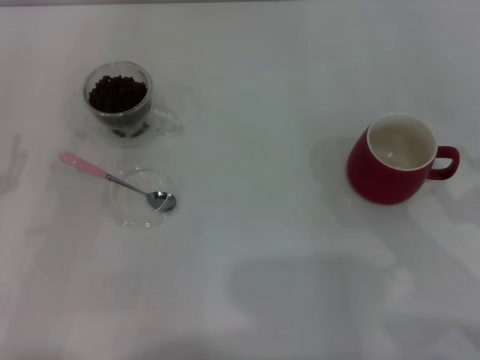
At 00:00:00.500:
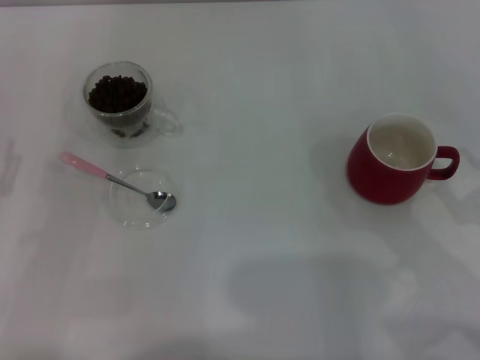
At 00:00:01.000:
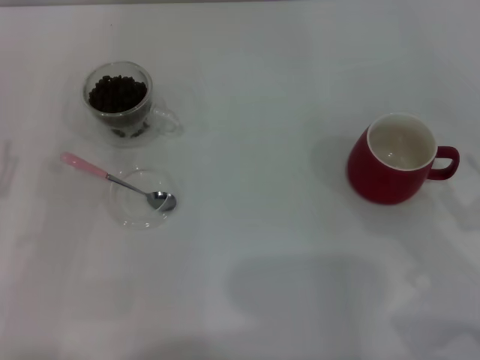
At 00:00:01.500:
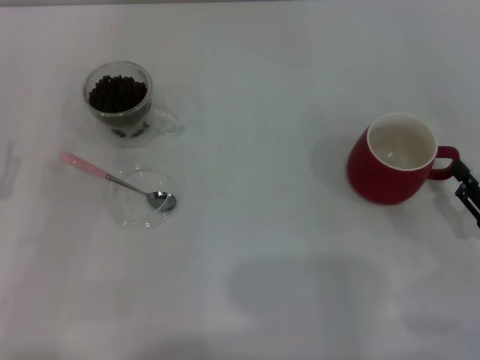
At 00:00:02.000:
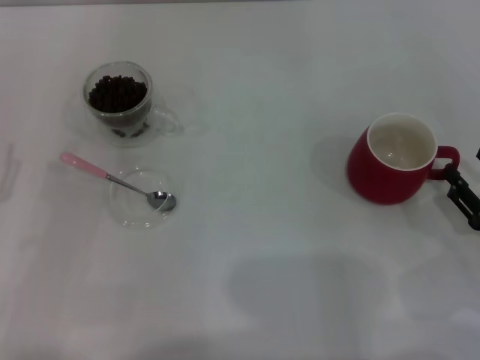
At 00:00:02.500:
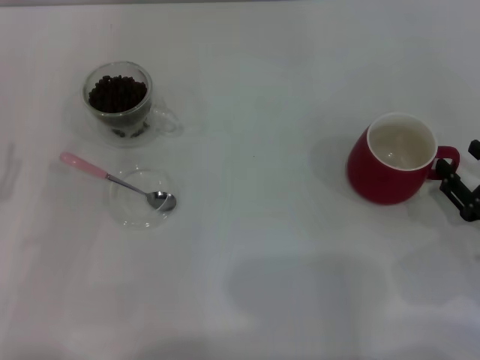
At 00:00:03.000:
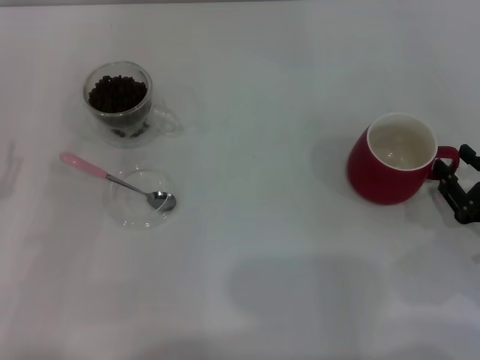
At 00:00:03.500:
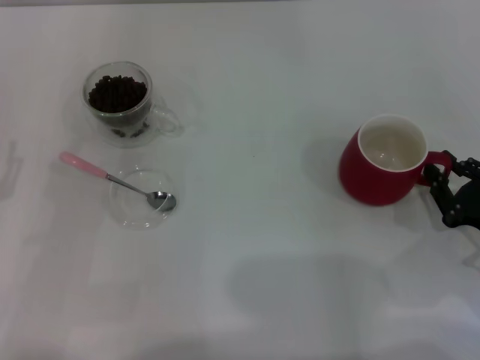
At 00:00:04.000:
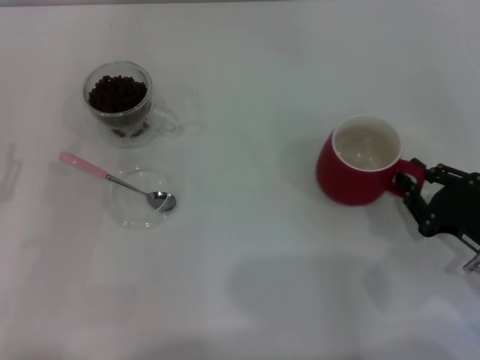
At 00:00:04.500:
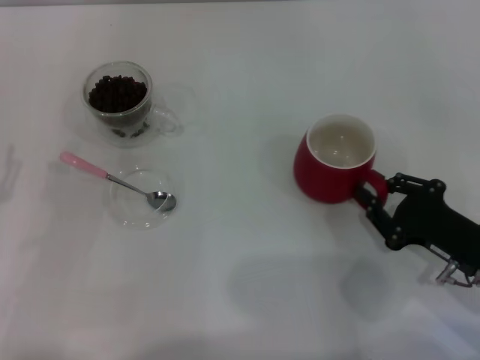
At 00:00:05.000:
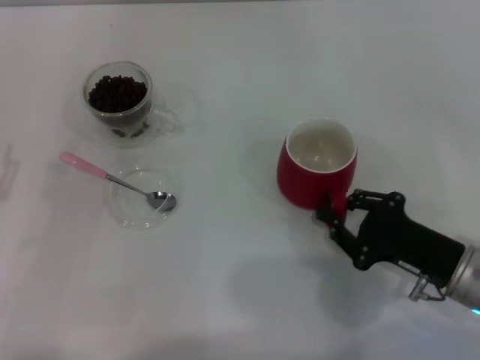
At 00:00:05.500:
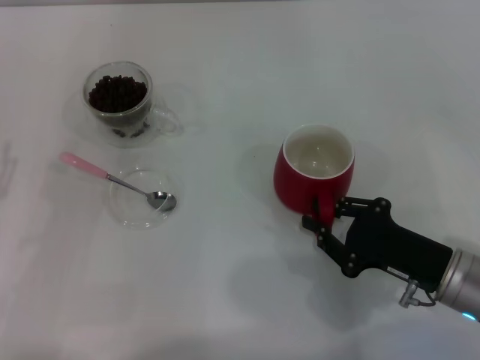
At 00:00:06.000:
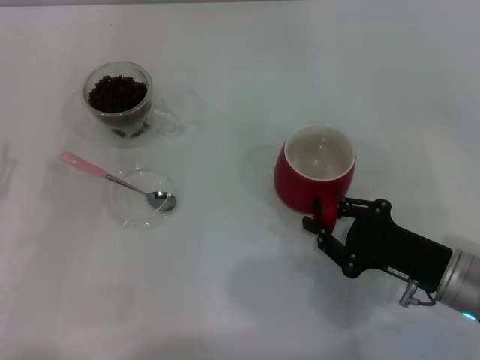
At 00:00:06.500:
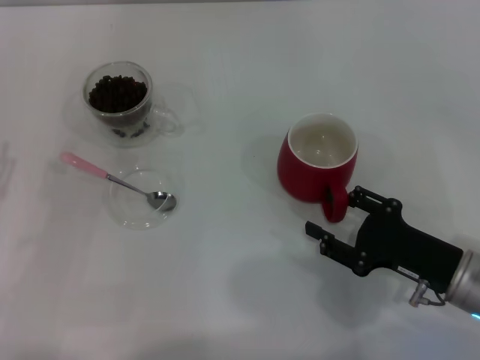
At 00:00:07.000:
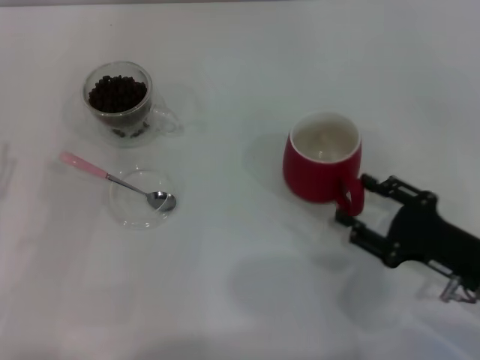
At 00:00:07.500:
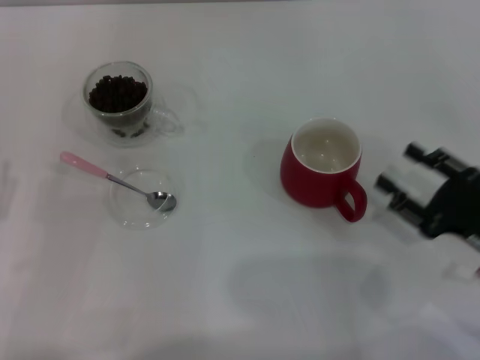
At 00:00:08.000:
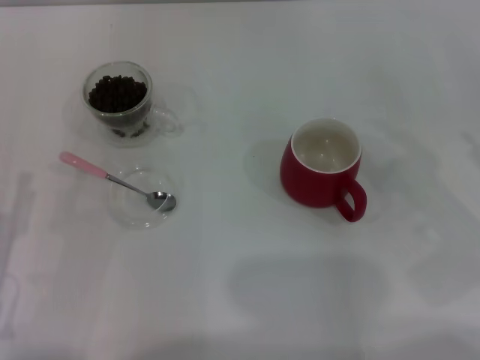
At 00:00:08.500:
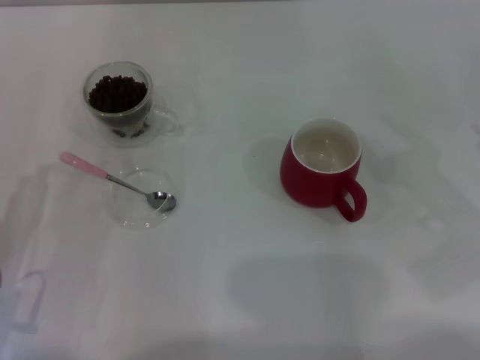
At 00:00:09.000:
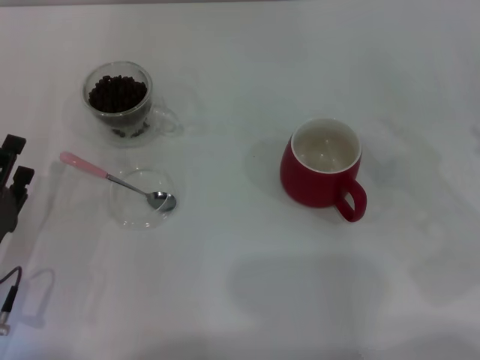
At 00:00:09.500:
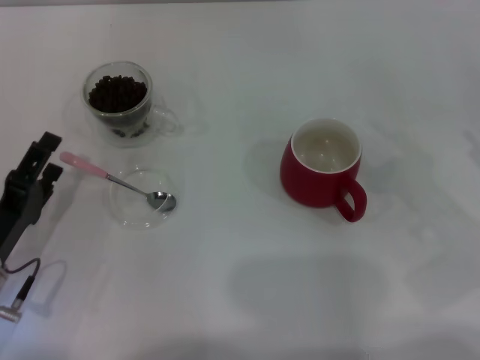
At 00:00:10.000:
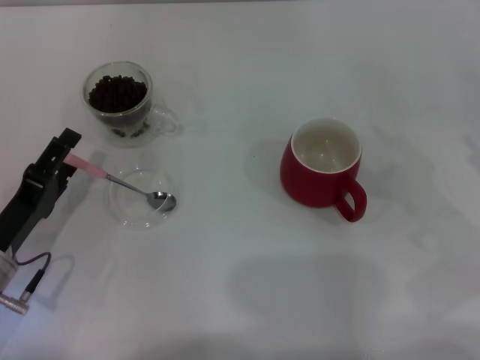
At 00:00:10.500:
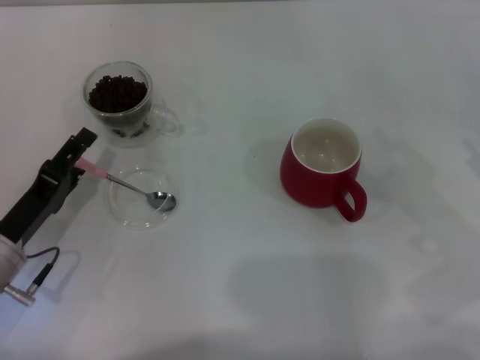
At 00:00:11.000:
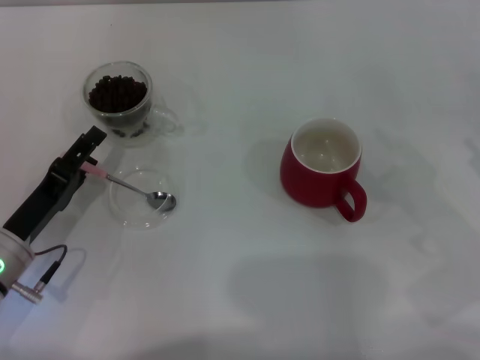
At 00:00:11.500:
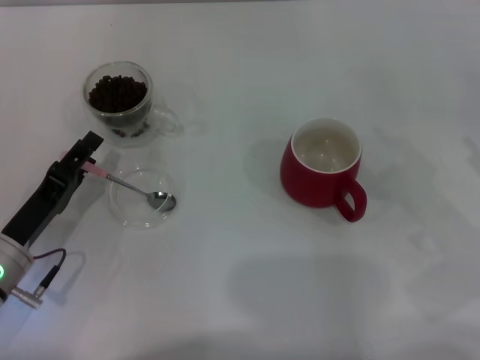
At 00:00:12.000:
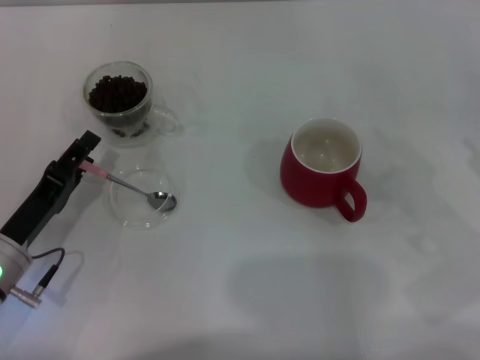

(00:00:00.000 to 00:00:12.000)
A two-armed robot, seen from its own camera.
Task of the whole recording: Use a pink spoon to take out the coffee beans from the glass and pour them into the red cup.
00:00:00.000 - 00:00:02.000: The right gripper shifts by approximately 5 cm.
00:00:02.000 - 00:00:04.000: The right gripper closes its fingers.
00:00:04.000 - 00:00:06.000: The right gripper is displaced to the left by roughly 5 cm.
00:00:06.000 - 00:00:08.000: The right gripper is displaced to the right and upward by roughly 15 cm, and opens its fingers. Meanwhile the left gripper changes place by about 5 cm.
00:00:08.000 - 00:00:10.000: The left gripper heads forward, covering approximately 5 cm.
00:00:10.000 - 00:00:12.000: There are only small adjustments of the grippers.

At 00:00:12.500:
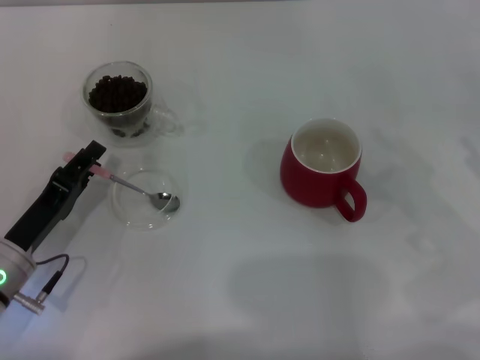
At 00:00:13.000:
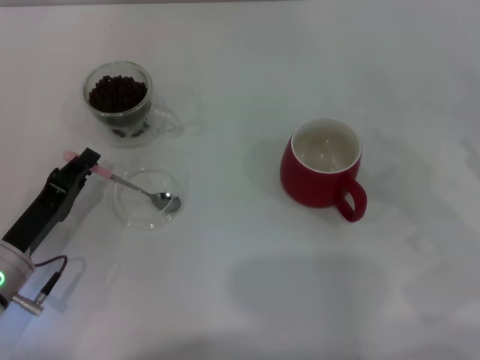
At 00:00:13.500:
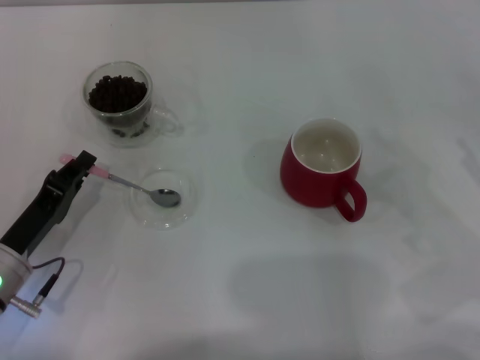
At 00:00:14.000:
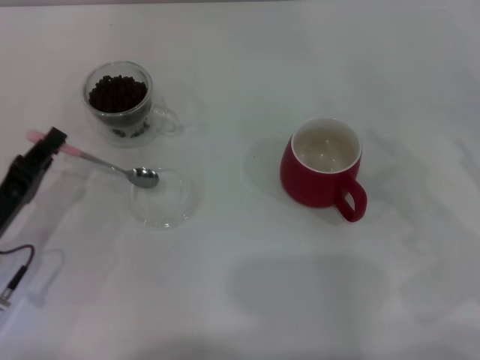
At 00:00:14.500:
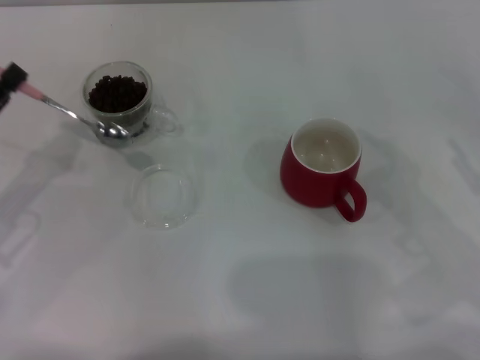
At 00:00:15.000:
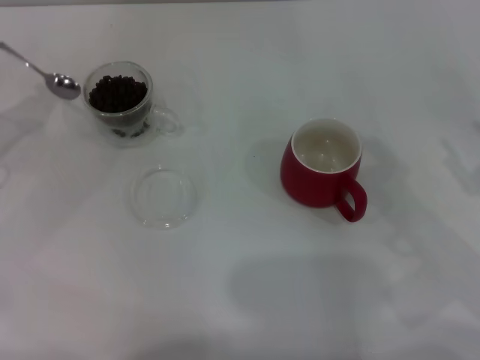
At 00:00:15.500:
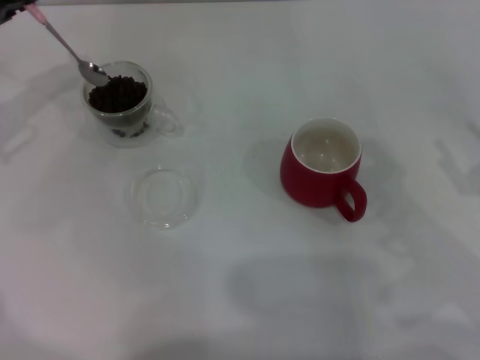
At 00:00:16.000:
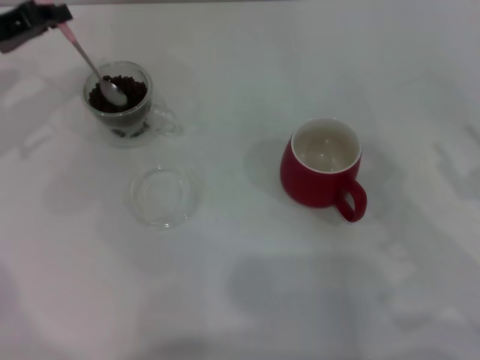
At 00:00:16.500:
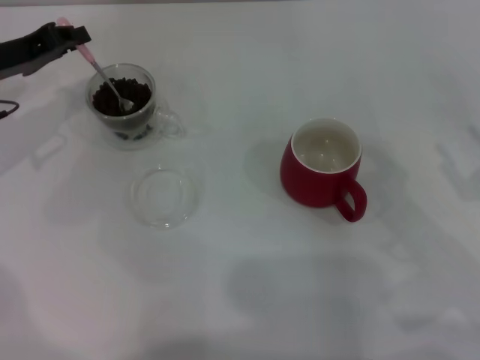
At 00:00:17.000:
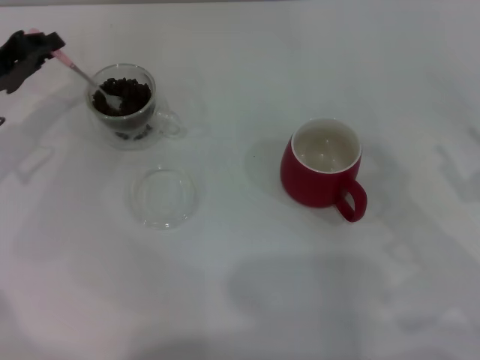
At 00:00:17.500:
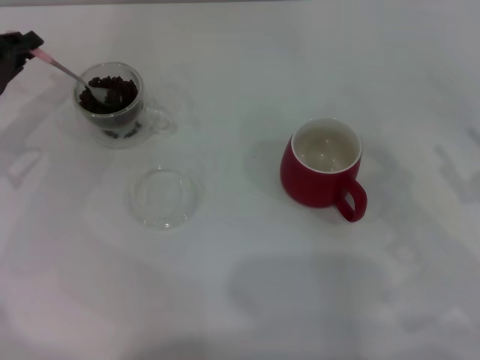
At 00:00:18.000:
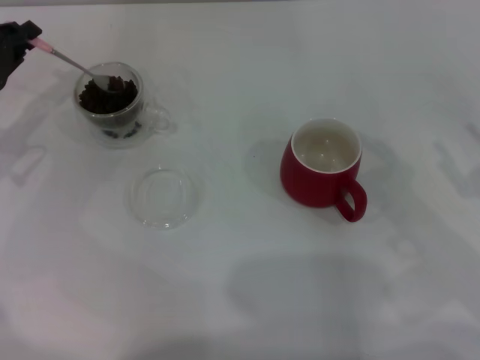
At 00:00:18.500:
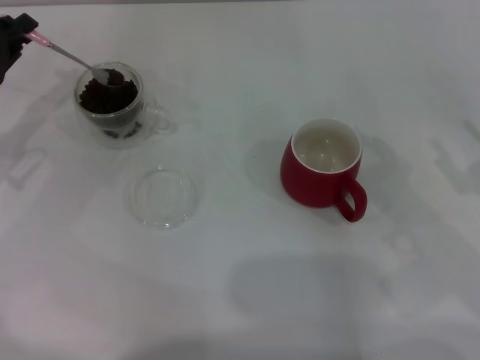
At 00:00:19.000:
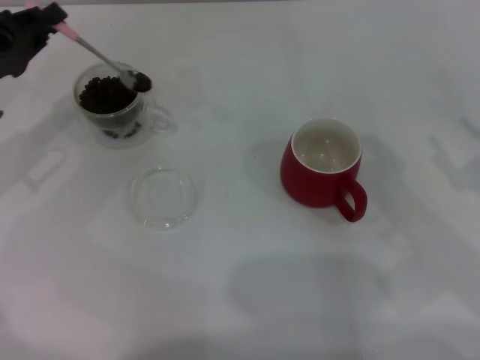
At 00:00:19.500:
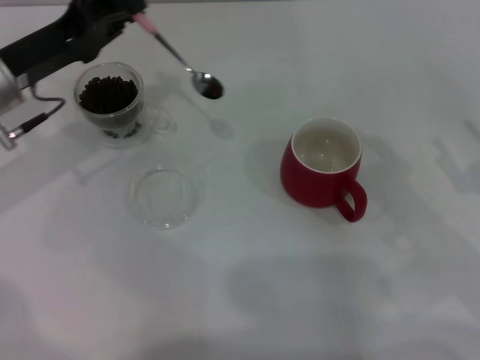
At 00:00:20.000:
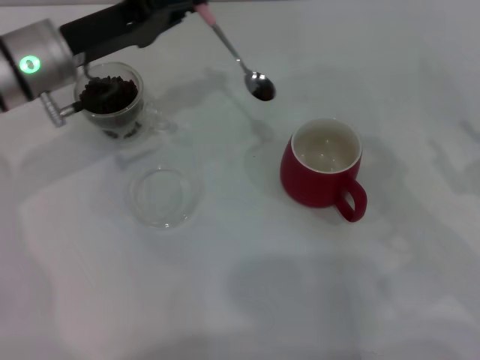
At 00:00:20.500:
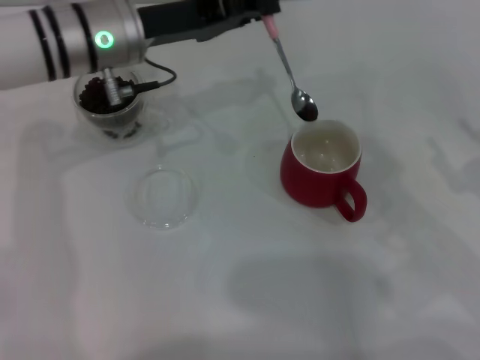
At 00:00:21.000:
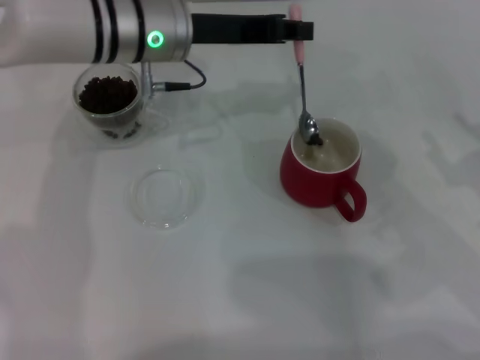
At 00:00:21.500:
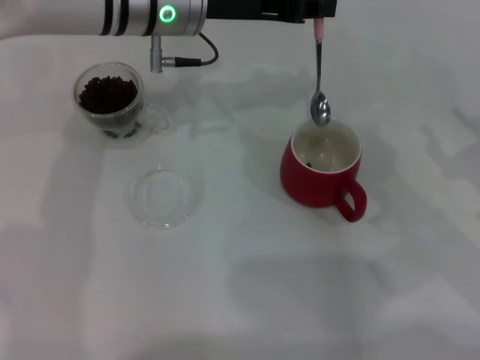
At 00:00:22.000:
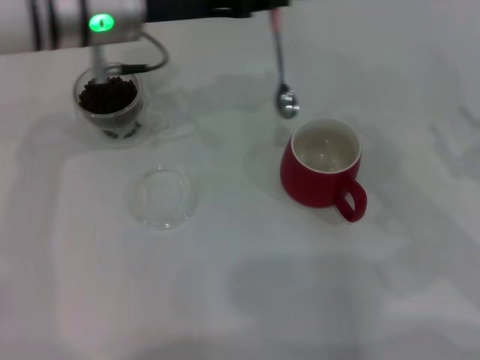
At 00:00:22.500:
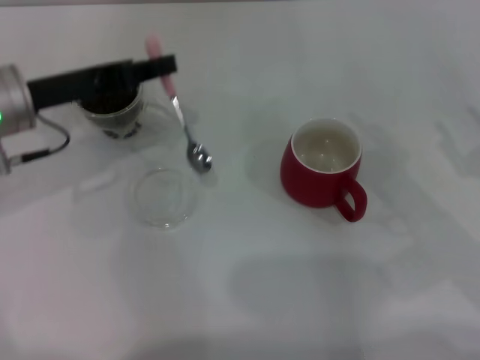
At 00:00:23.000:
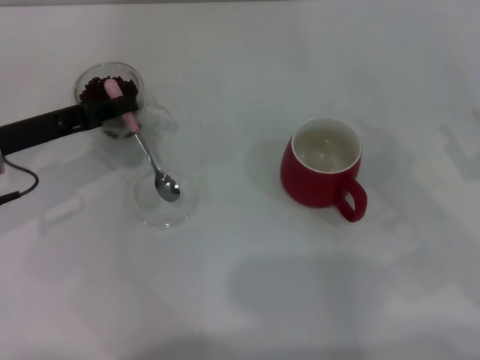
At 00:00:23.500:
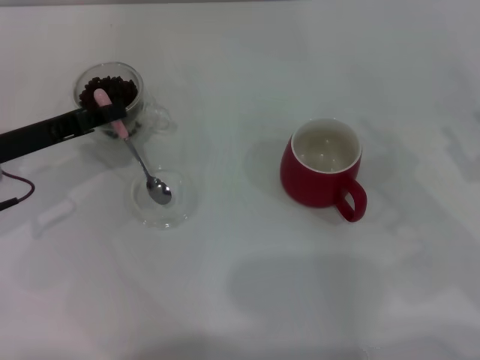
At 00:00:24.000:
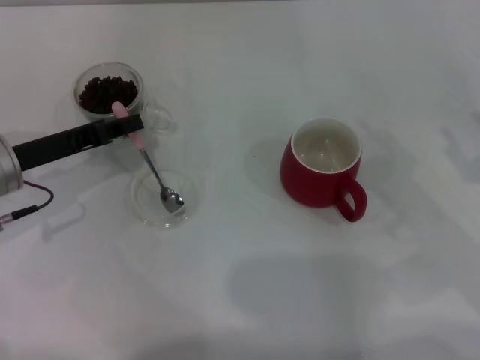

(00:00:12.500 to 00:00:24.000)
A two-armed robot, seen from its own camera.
Task of the whole recording: Use a pink spoon to take out the coffee beans from the glass and pour them into the red cup.
00:00:12.500 - 00:00:14.500: The left gripper is displaced upward and to the left by some 10 cm, and closes.
00:00:14.500 - 00:00:16.500: The left gripper travels forward by roughly 15 cm.
00:00:16.500 - 00:00:18.500: The left gripper changes place by some 5 cm.
00:00:18.500 - 00:00:20.000: The left gripper goes about 15 cm to the right.
00:00:20.000 - 00:00:22.000: The left gripper moves to the right and upward, some 5 cm.
00:00:22.000 - 00:00:24.000: The left gripper goes about 20 cm to the left, downward and backward.

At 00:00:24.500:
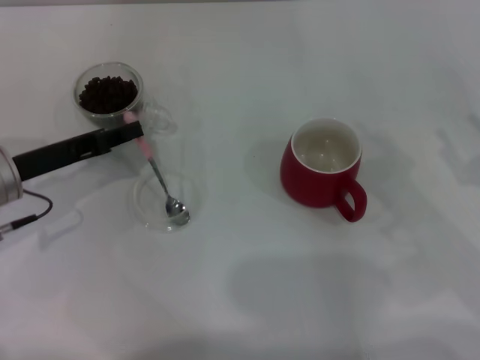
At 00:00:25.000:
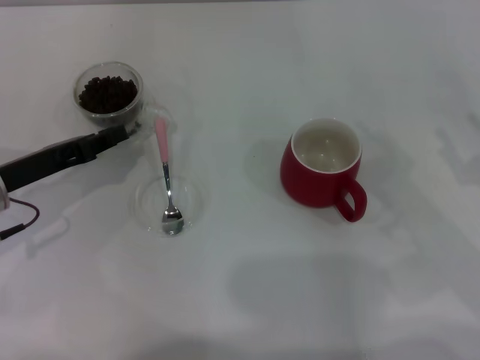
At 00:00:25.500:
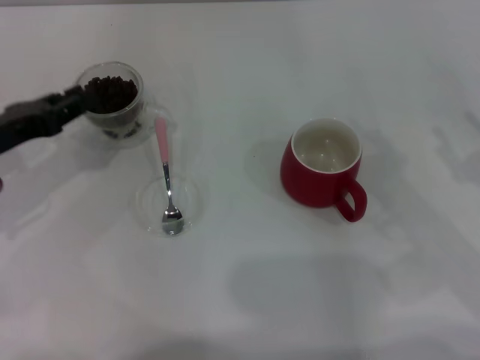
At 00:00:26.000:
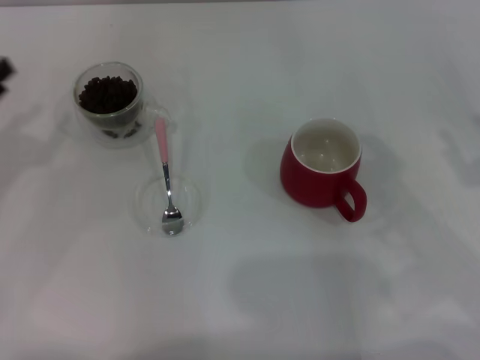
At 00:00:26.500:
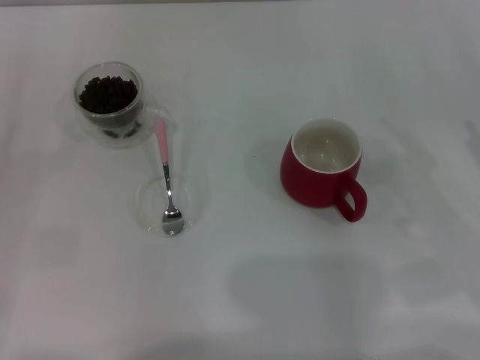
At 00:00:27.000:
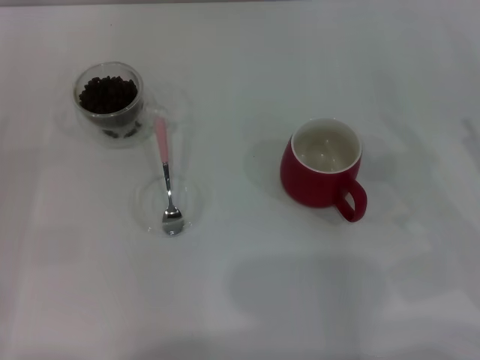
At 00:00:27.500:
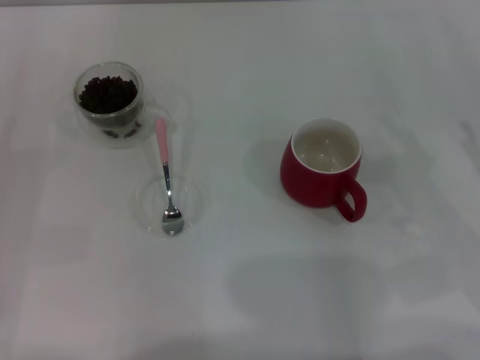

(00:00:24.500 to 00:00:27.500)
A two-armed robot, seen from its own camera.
Task of the whole recording: Use a pink spoon to take out the coffee beans from the glass and pour them into the red cup.
00:00:24.500 - 00:00:26.000: The left gripper travels to the left by approximately 10 cm.
